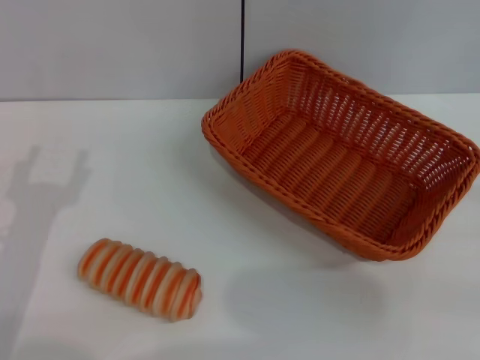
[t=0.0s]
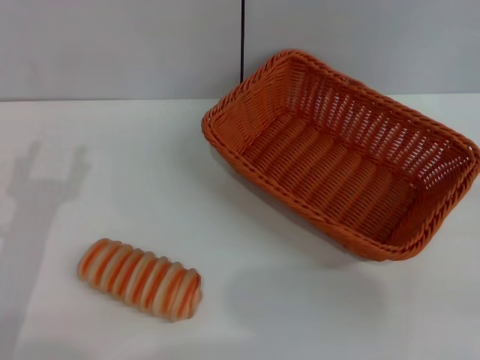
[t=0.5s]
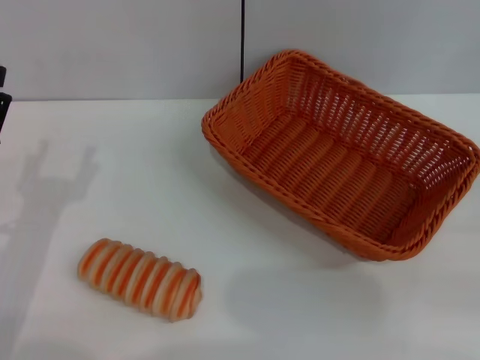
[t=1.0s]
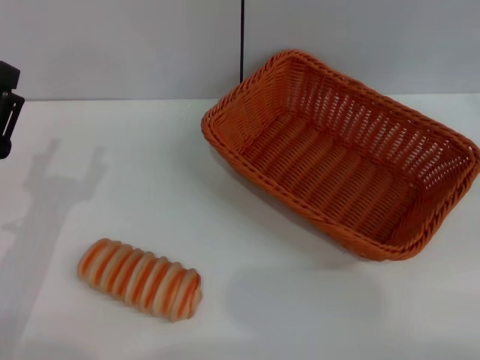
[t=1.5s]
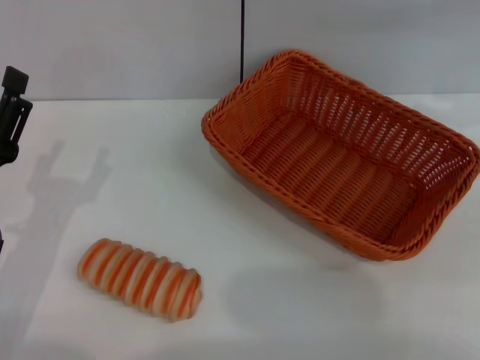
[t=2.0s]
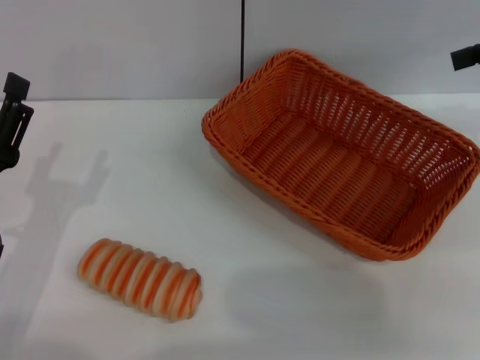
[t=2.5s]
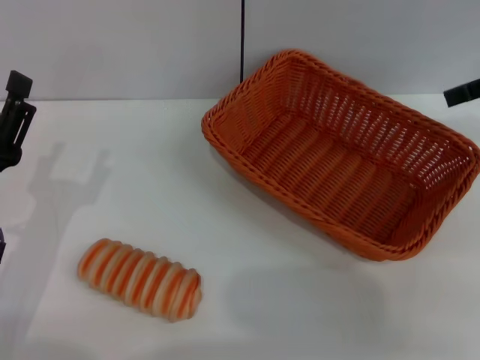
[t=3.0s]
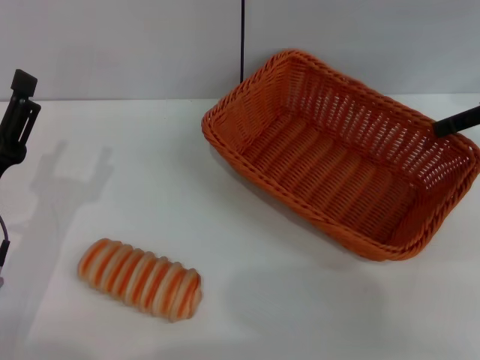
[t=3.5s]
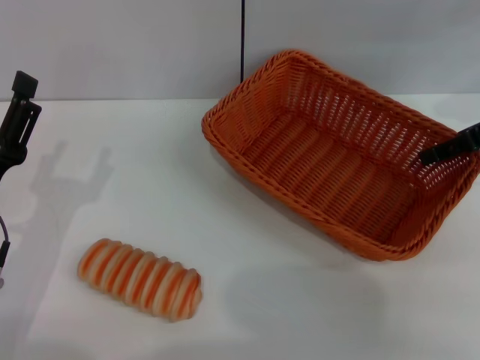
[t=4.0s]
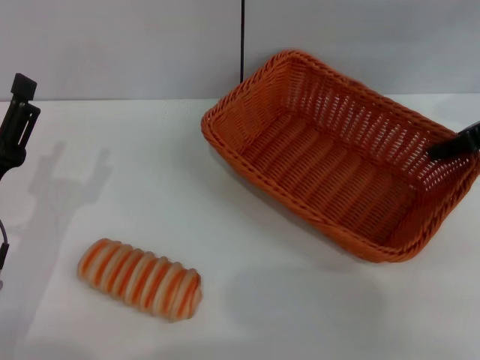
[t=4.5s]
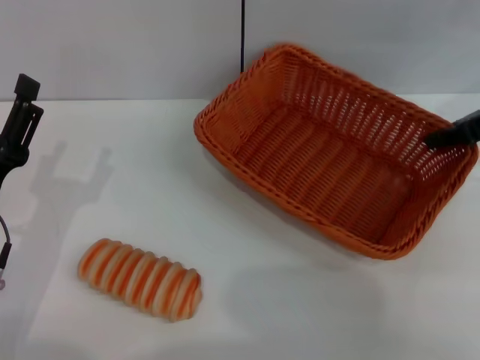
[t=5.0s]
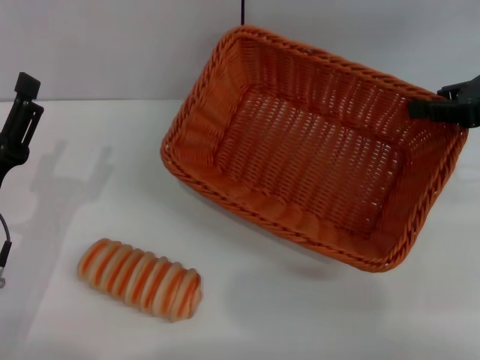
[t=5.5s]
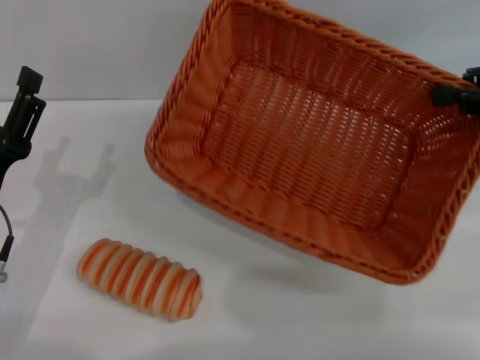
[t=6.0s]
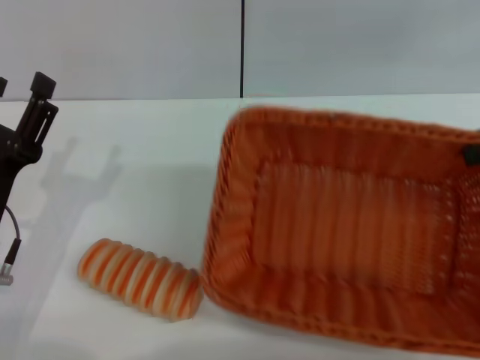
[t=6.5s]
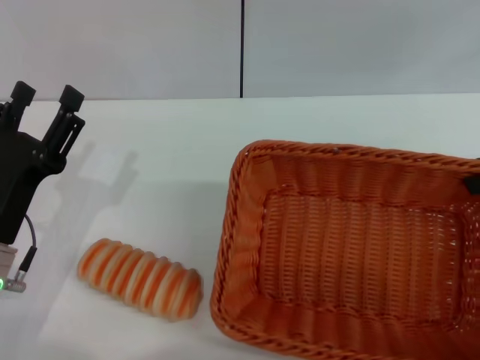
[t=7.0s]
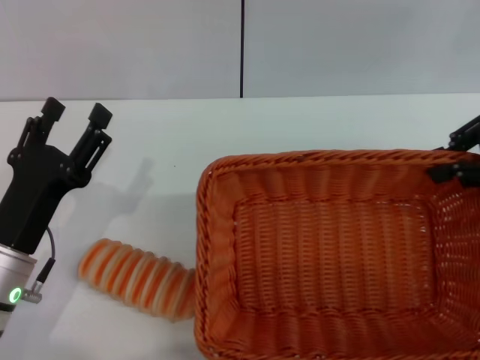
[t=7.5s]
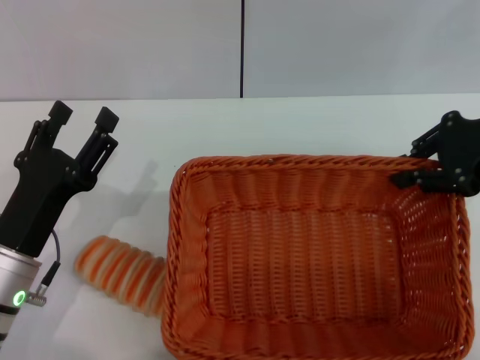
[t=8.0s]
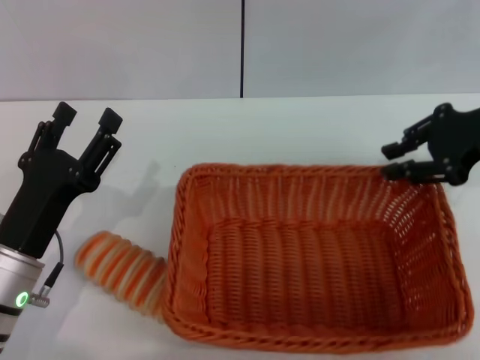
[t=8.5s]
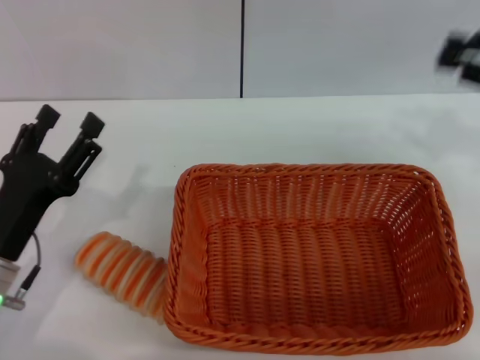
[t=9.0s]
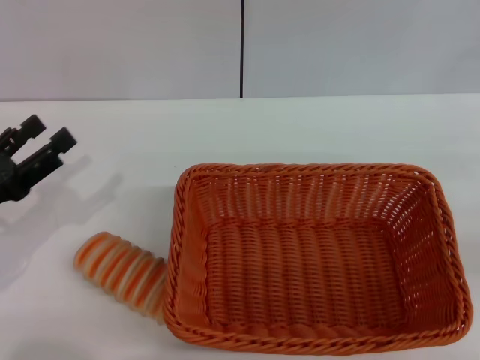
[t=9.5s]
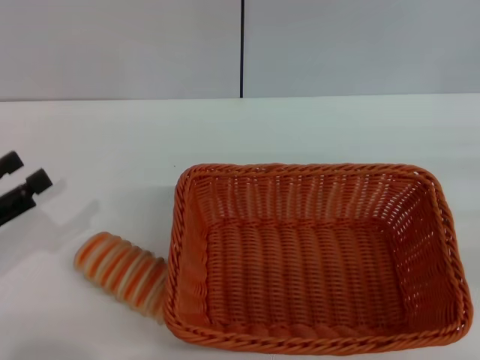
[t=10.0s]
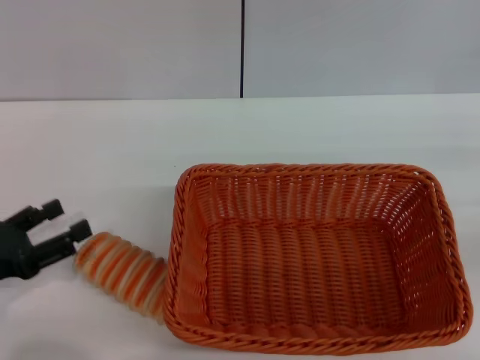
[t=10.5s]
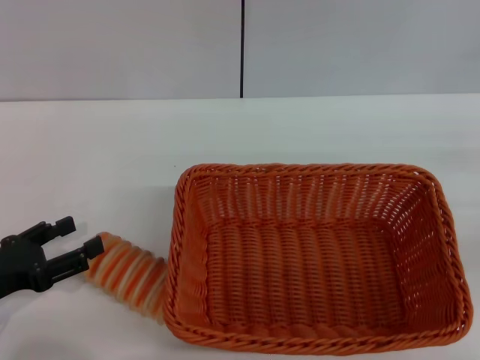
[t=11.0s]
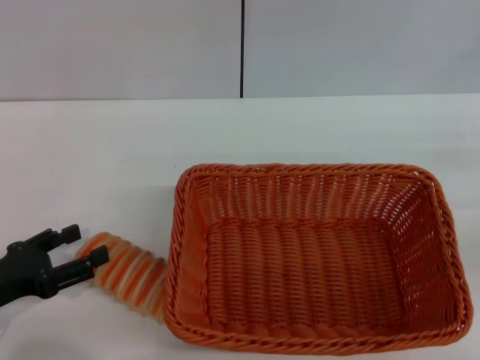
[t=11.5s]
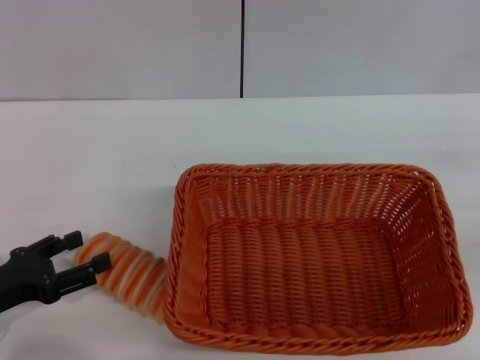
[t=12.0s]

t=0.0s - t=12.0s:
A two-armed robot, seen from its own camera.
Step, t=0.0s - t=5.5s: Pick up the light basket with the right gripper.
Step, t=6.0s - t=8.5s: Place the light basket in the center of view with the right gripper.
t=0.0s - t=2.0s: The right gripper shifts approximately 25 cm upward and forward.
t=2.0s - t=4.0s: The right gripper shifts some 15 cm downward and to the left.
t=4.0s - t=6.0s: The right gripper travels backward by some 5 cm, and closes.
t=6.0s - t=8.0s: The right gripper shifts by roughly 5 cm.
t=8.0s - t=10.0s: The right gripper moves to the right, backward and downward, approximately 20 cm. The left gripper moves to the left, some 15 cm.
t=10.0s - t=12.0s: The left gripper shifts by some 5 cm.

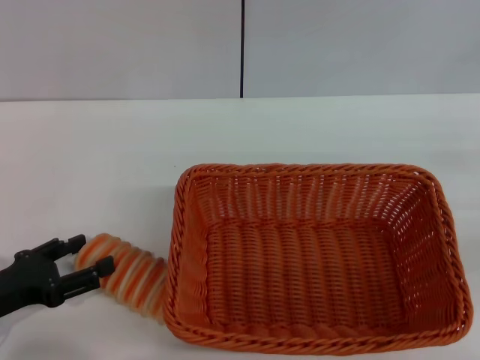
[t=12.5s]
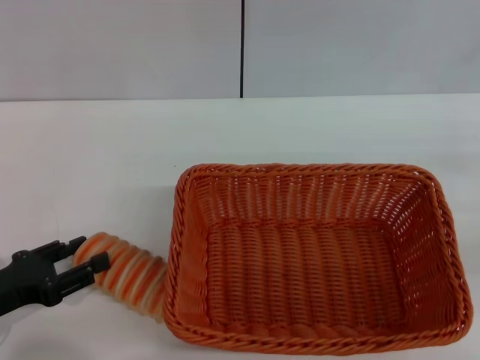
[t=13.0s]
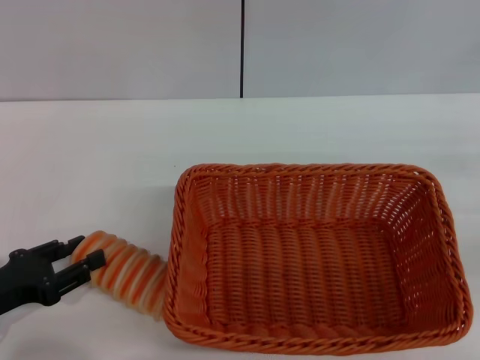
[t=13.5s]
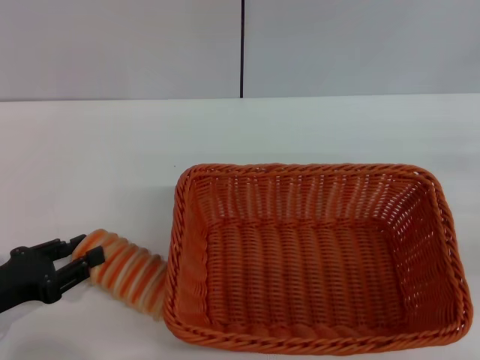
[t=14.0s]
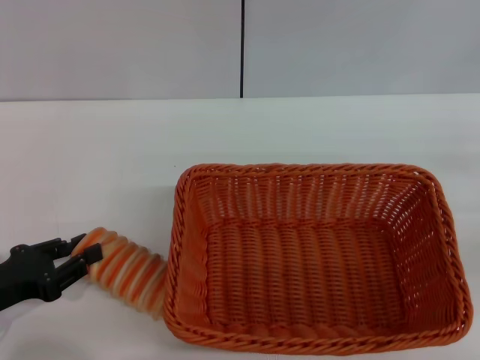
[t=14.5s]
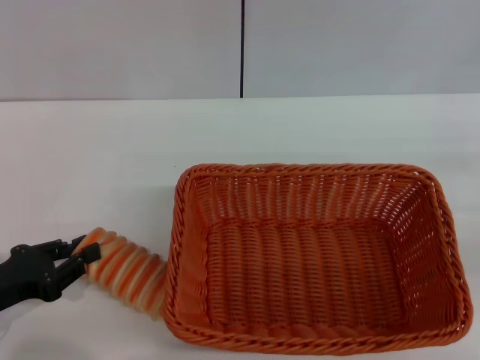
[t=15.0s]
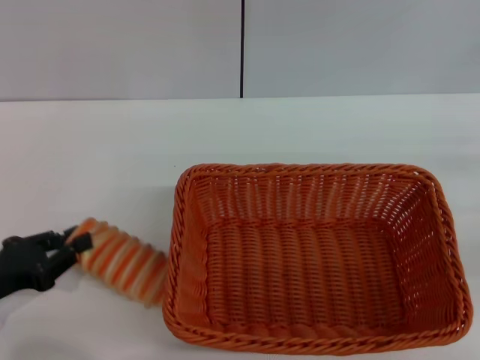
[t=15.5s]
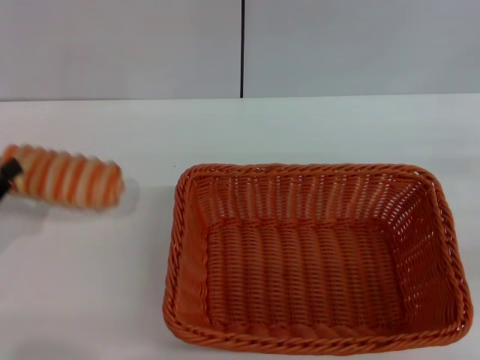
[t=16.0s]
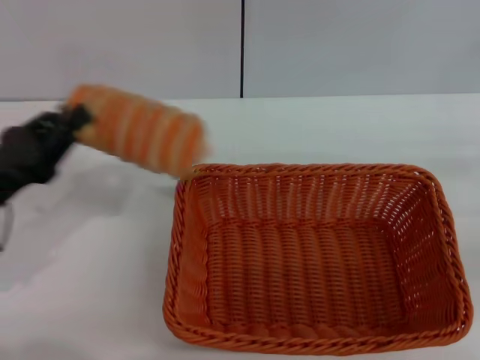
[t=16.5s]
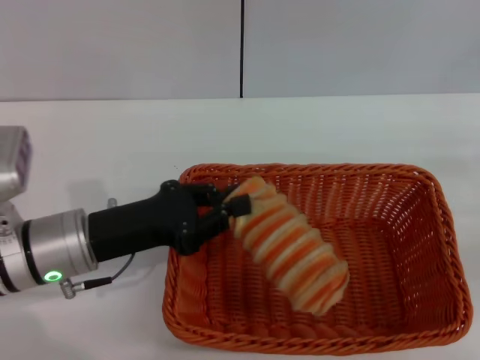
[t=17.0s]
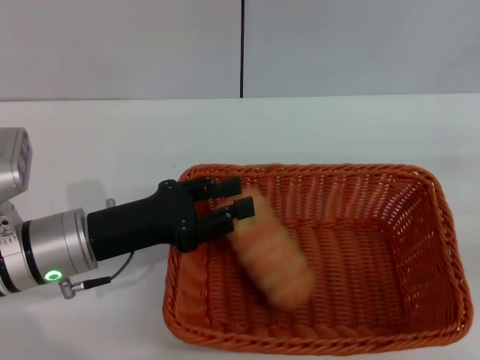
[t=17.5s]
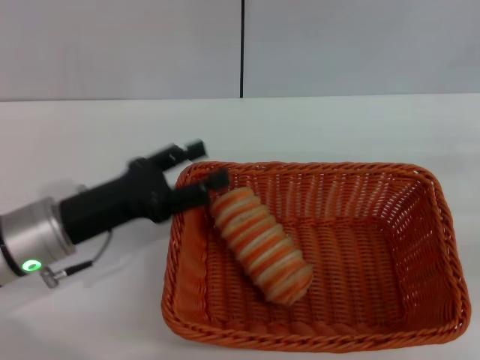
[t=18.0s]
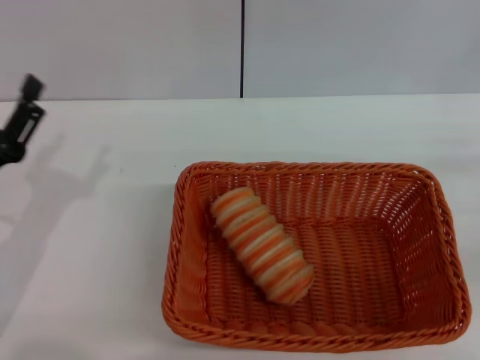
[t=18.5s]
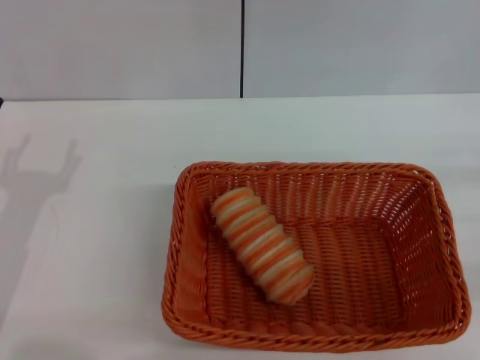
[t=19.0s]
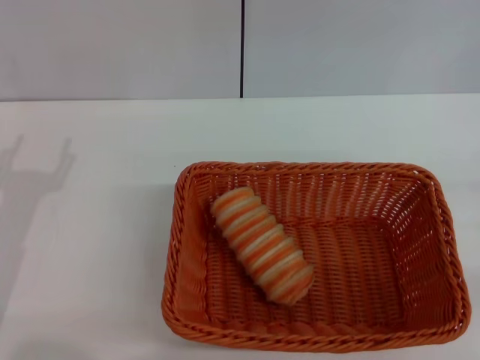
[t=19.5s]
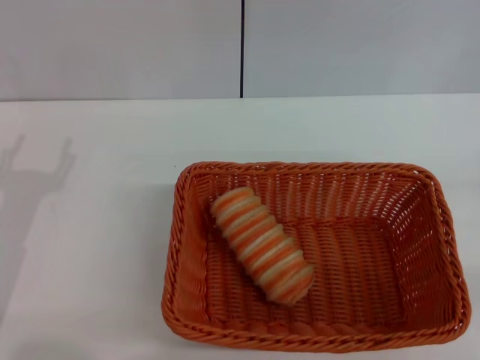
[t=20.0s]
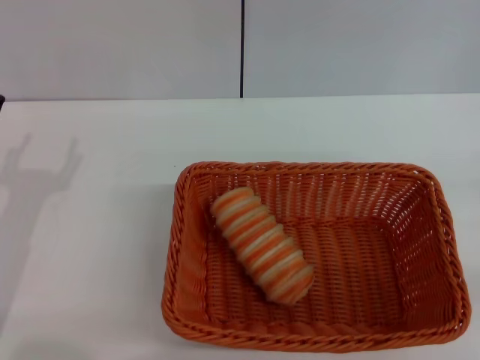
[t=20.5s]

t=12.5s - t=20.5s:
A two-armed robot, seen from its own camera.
Step, t=12.5s - t=16.0s: Pick up the long bread with the left gripper.
Step, t=16.5s - t=18.0s: Place the long bread into the light basket with the left gripper.
t=12.5s - t=14.5s: The left gripper closes.
t=14.5s - t=16.5s: The left gripper ends up approximately 5 cm from where it was.
t=16.5s - t=18.5s: The left gripper reaches roughly 10 cm to the right, then returns, and opens its fingers.
